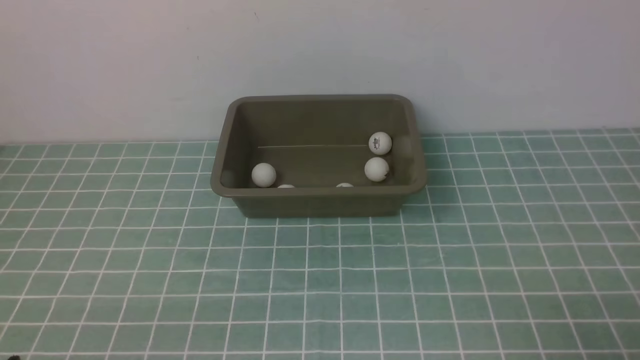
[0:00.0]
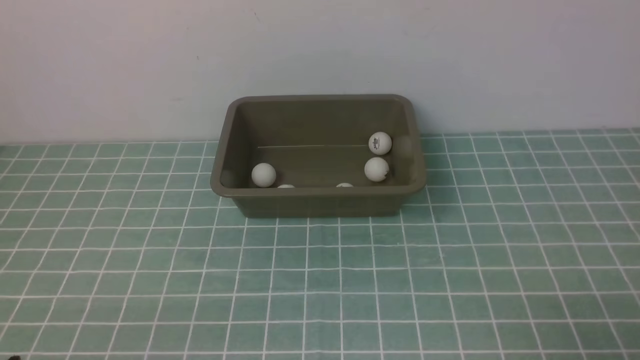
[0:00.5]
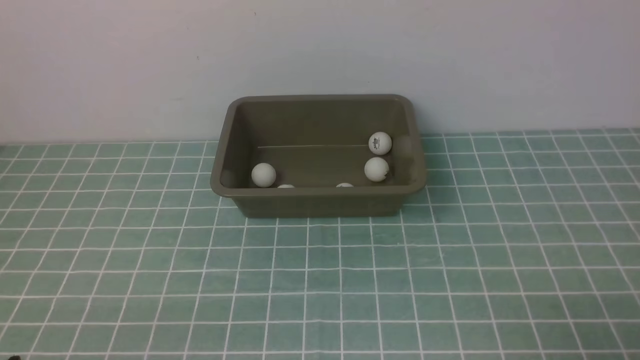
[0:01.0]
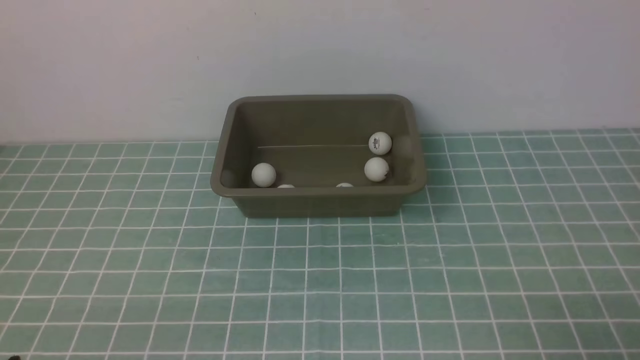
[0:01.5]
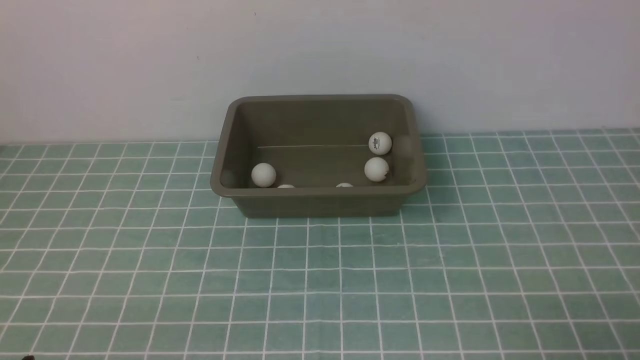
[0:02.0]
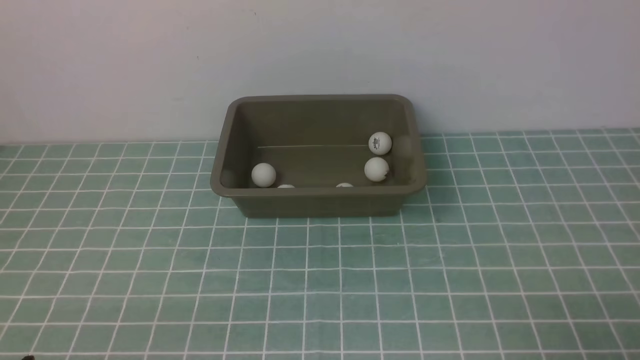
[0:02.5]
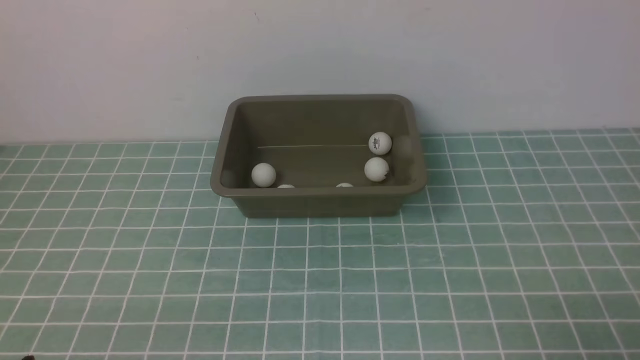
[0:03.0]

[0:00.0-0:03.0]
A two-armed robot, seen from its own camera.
0:00.0 to 0:03.0: Neither gripper changes place.

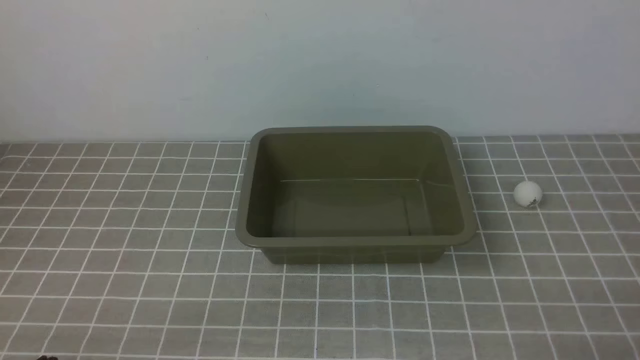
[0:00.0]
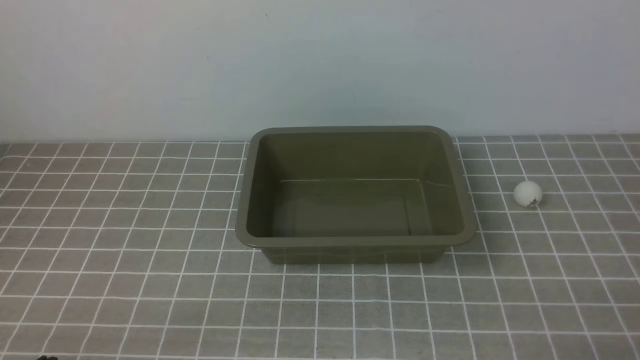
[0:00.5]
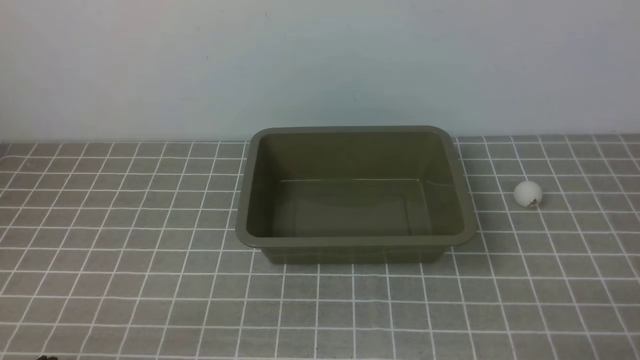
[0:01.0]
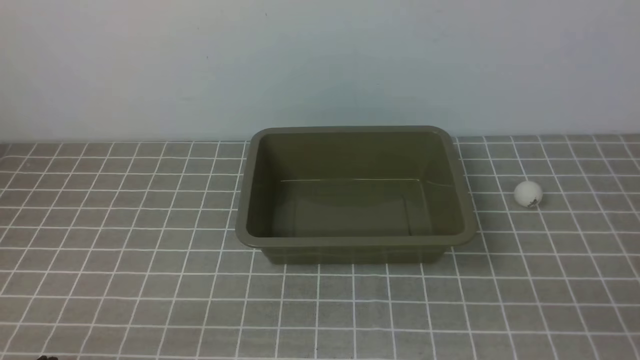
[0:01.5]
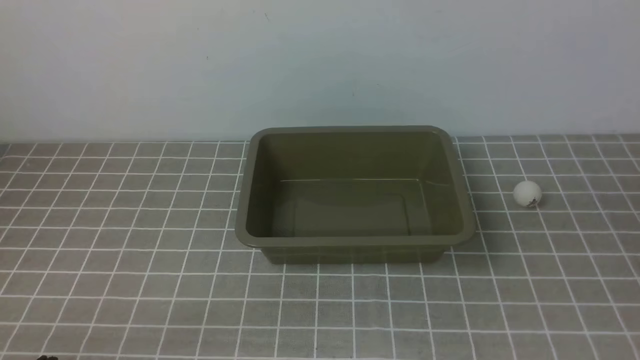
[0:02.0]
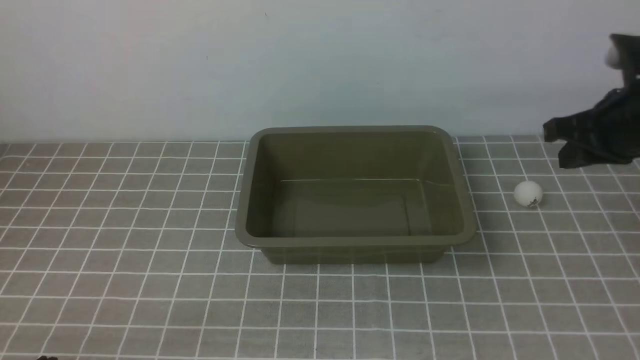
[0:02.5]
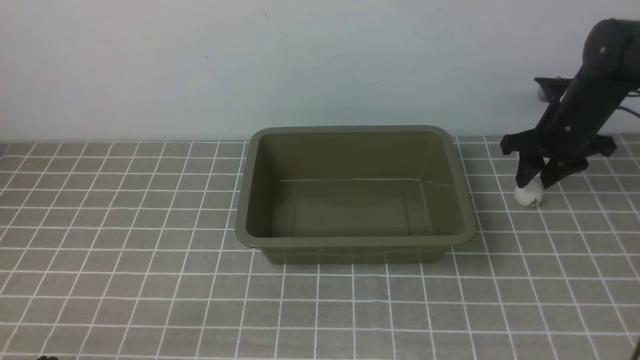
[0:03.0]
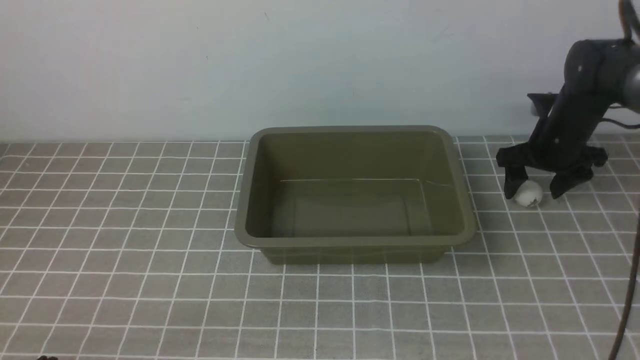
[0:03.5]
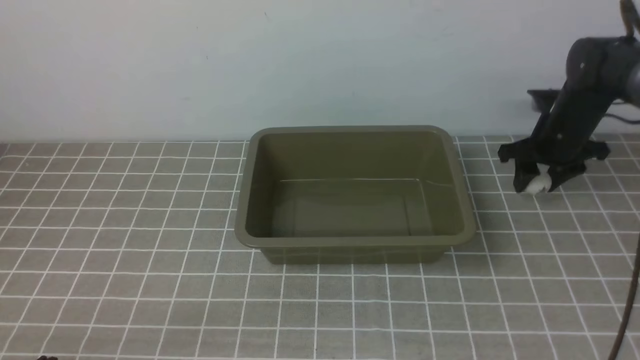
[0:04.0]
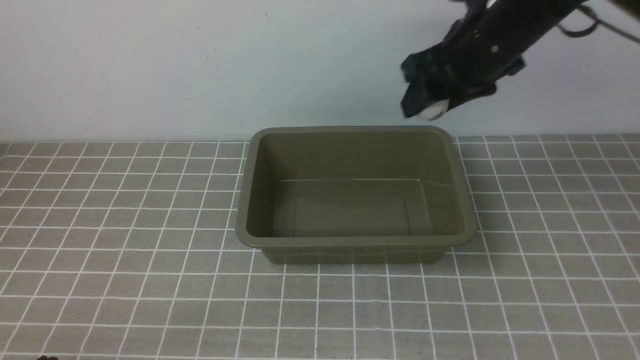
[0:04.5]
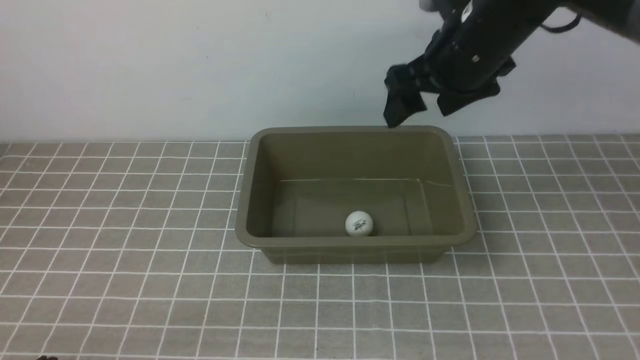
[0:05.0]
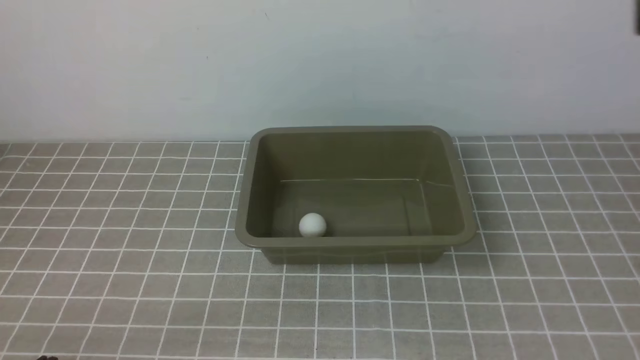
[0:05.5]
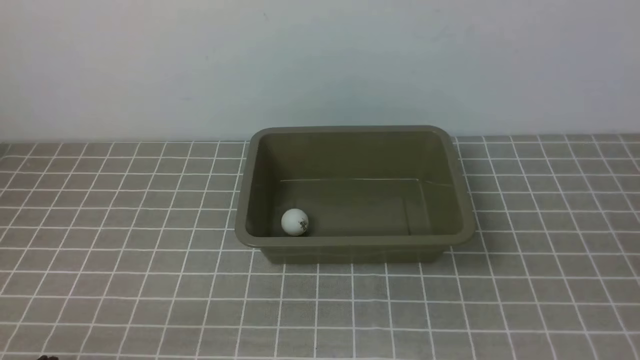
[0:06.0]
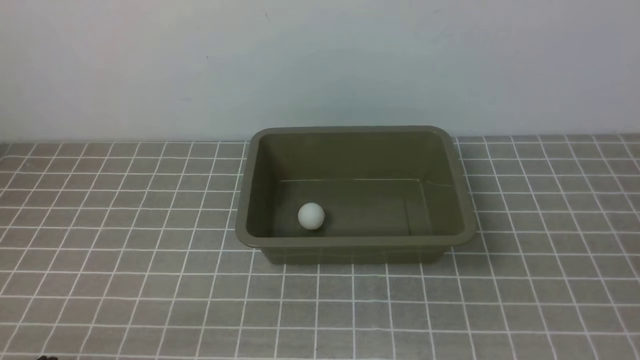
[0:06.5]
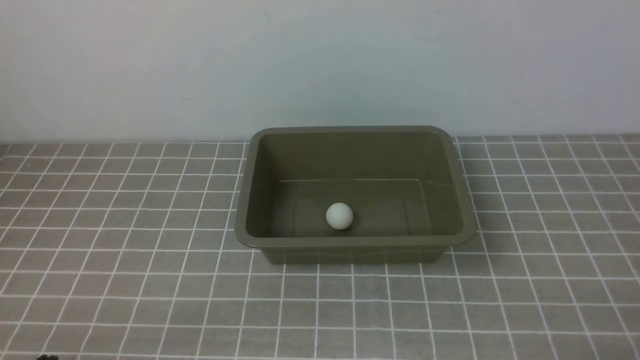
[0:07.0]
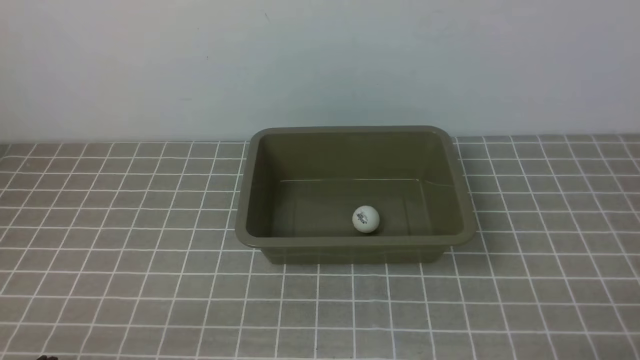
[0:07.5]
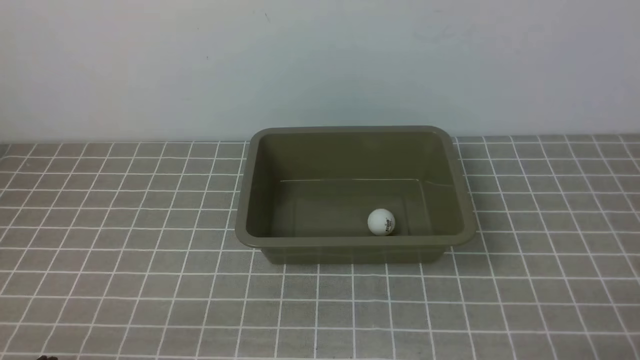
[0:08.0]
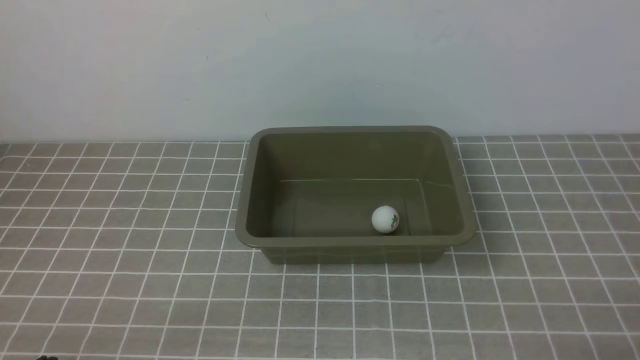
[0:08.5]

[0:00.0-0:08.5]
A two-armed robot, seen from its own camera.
Step, 0:00.0 to 0:04.0: use the right arm to clamp the table tennis ball closest to it.
0:02.0 to 0:04.0: The right gripper heads forward, covering roughly 35 cm, and opens.
0:04.0 to 0:06.5: The right gripper is displaced backward by some 40 cm, and closes.

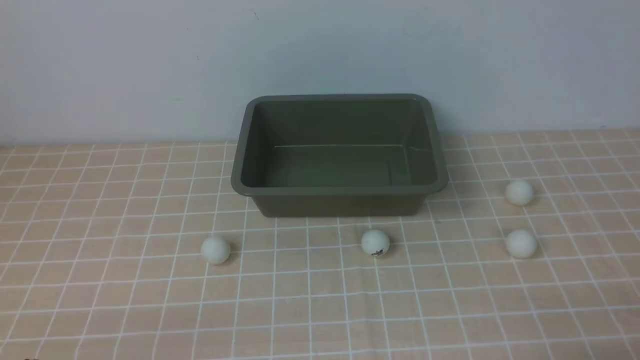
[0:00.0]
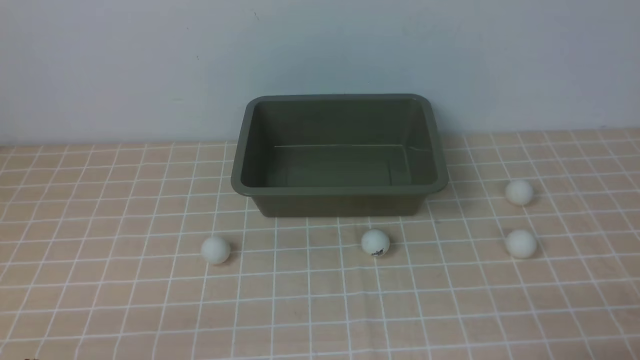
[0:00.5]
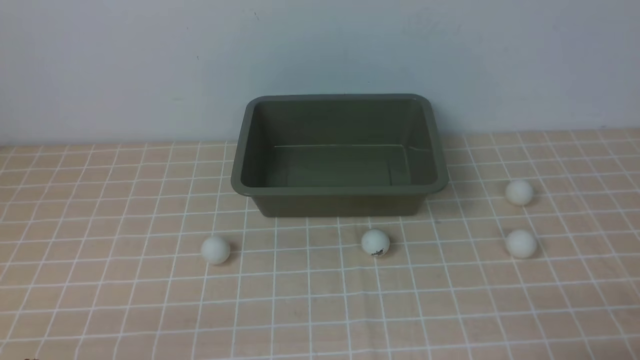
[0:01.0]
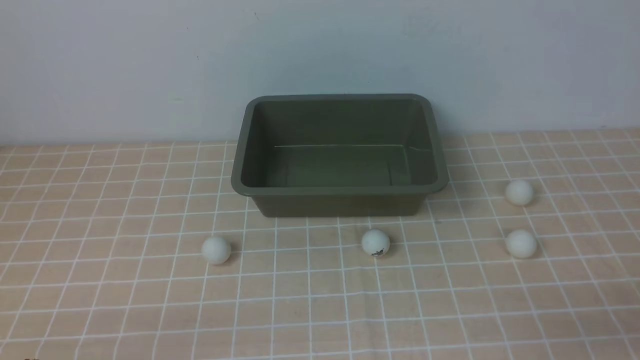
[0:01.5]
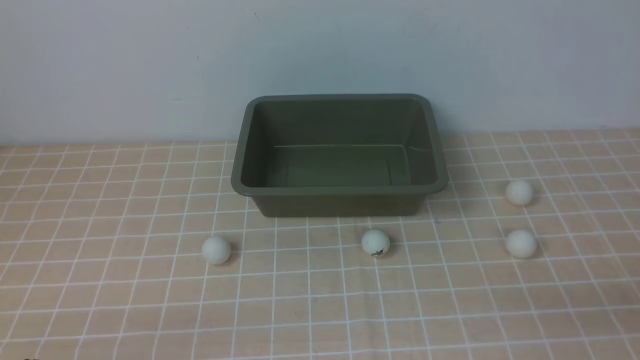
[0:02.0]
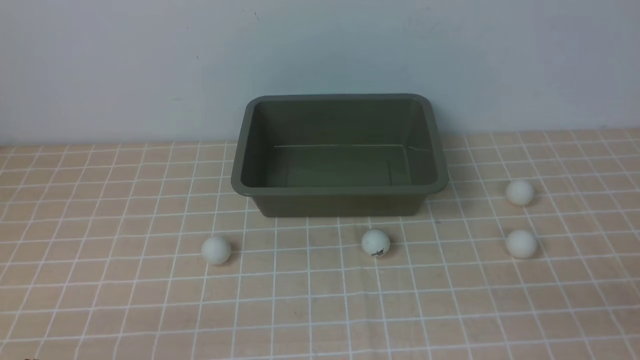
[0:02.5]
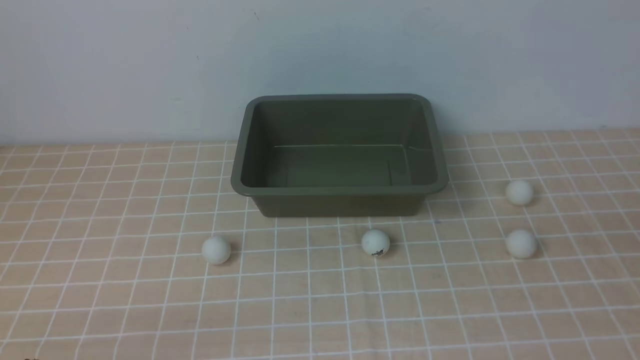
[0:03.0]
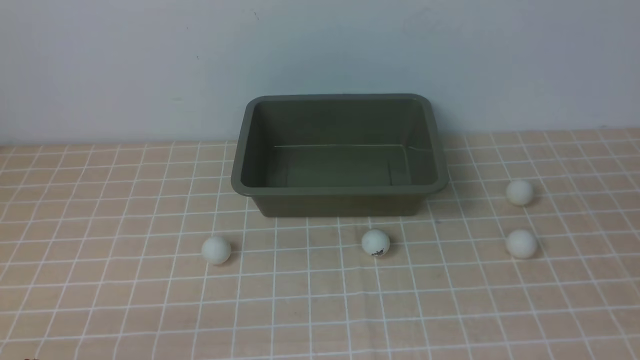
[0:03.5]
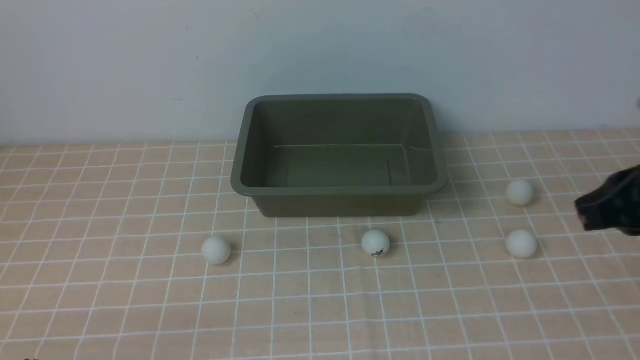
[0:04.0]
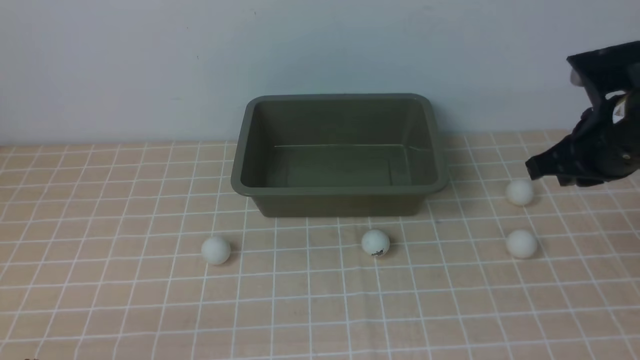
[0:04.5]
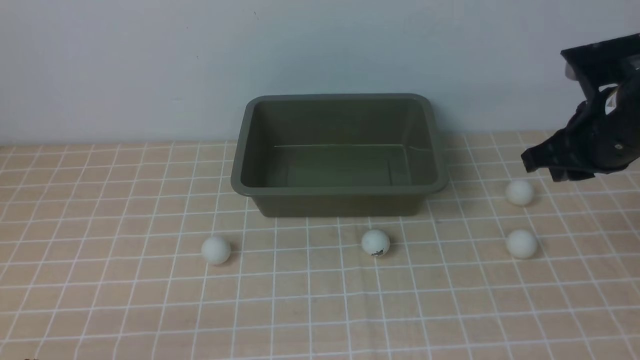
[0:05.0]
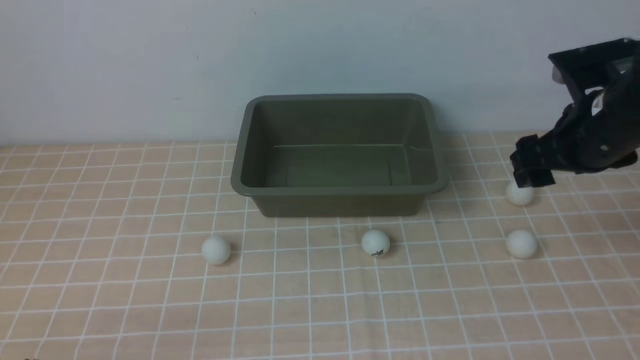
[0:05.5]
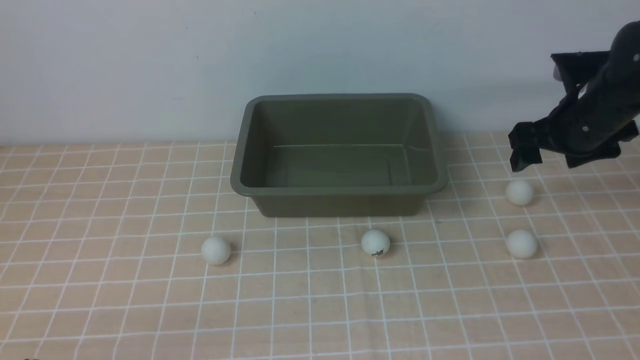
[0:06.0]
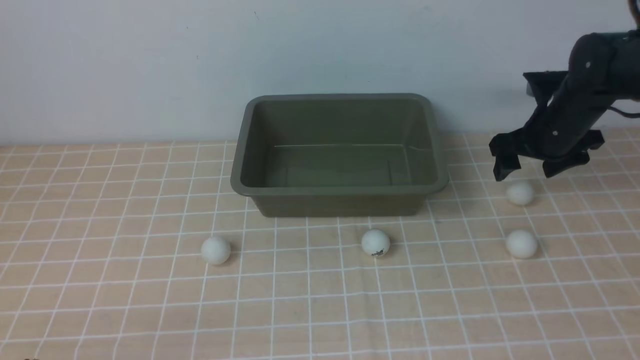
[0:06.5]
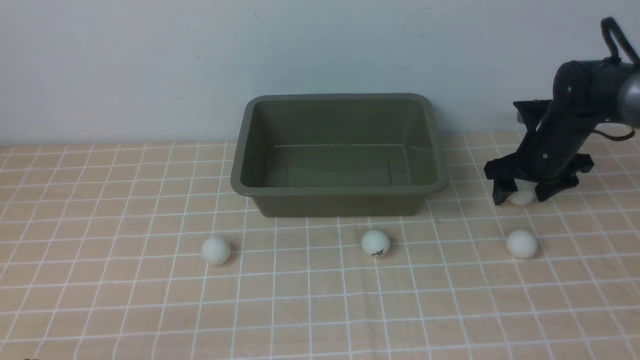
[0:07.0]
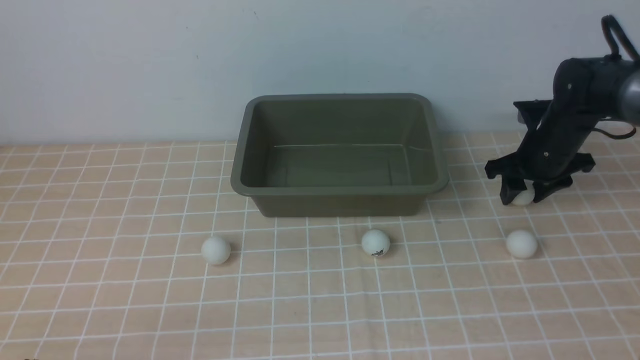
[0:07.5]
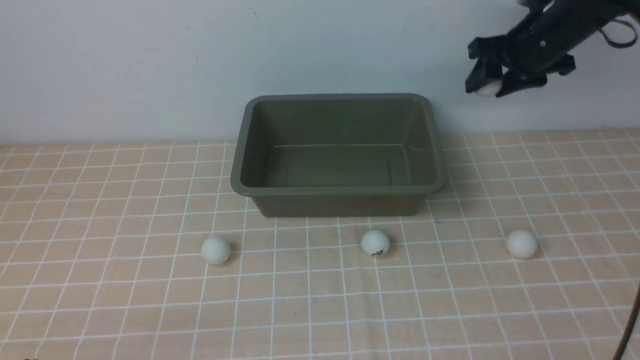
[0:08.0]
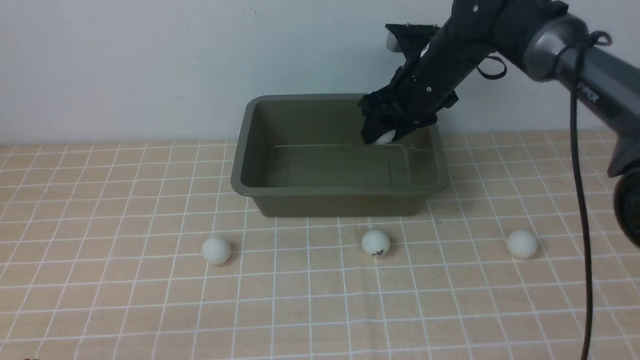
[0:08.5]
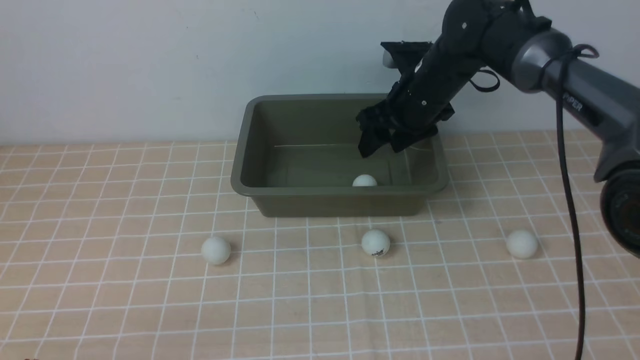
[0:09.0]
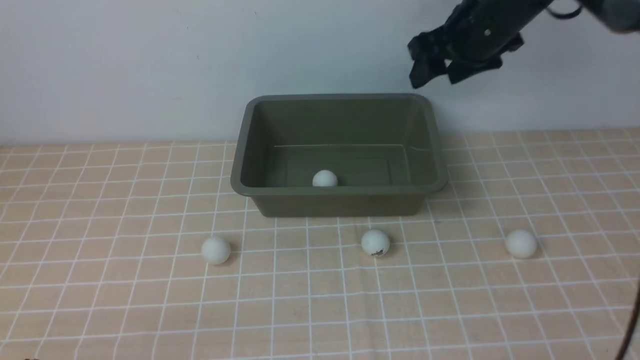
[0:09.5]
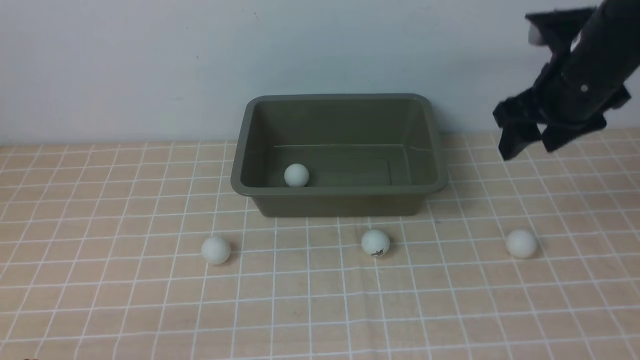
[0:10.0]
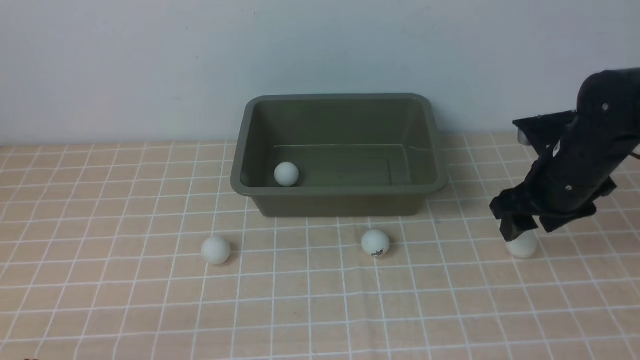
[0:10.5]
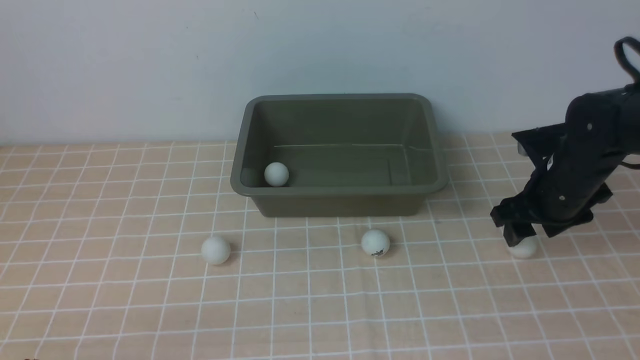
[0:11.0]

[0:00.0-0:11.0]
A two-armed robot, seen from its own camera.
Step, 0:00.0 to 0:07.5: use the right arm to clamp the table tennis ball closest to it.
Step, 0:08.0 to 0:08.5: use the right arm to put the table tennis ball into the box.
0:03.5 to 0:05.5: The right gripper goes roughly 20 cm forward, and opens its fingers.
0:05.5 to 0:07.5: The right gripper shifts some 15 cm forward and downward.
0:07.5 to 0:09.0: The right gripper shifts roughly 15 cm to the left.
0:09.0 to 0:11.0: The right gripper moves to the right, backward and downward, approximately 20 cm.
